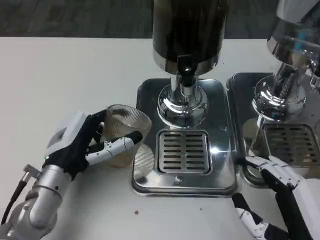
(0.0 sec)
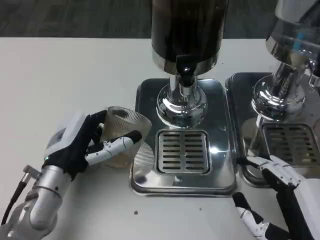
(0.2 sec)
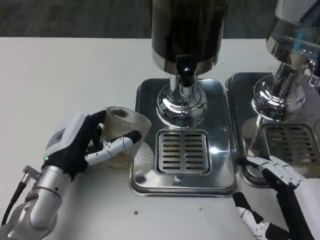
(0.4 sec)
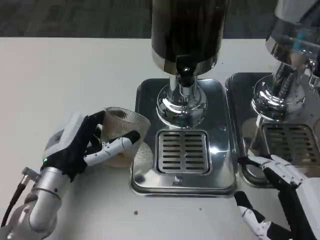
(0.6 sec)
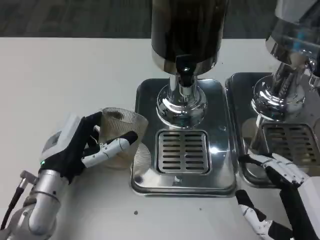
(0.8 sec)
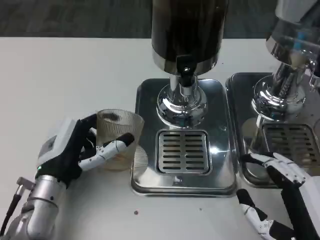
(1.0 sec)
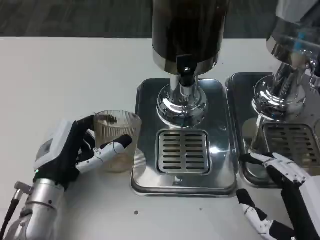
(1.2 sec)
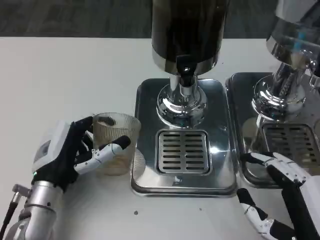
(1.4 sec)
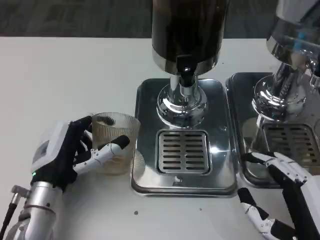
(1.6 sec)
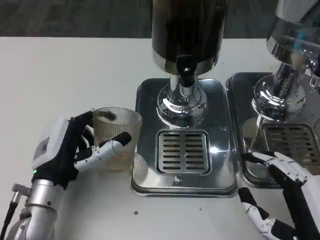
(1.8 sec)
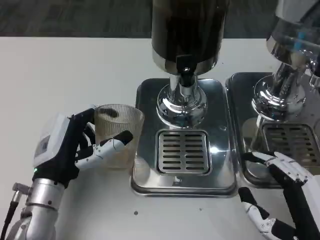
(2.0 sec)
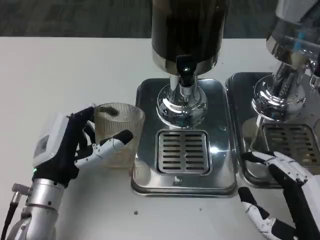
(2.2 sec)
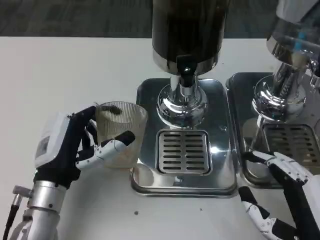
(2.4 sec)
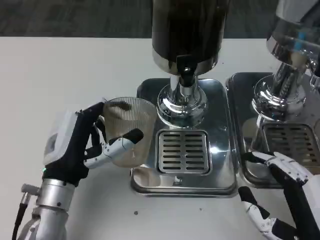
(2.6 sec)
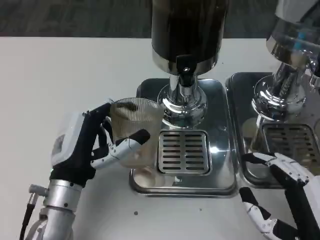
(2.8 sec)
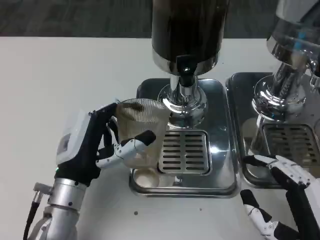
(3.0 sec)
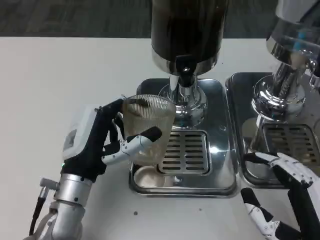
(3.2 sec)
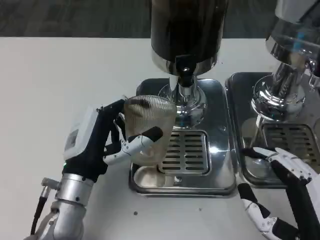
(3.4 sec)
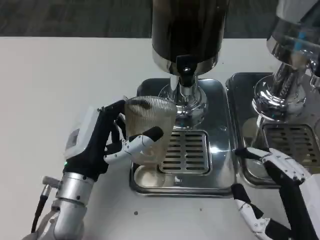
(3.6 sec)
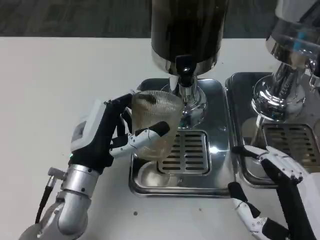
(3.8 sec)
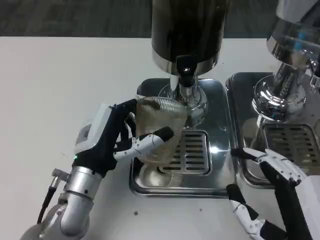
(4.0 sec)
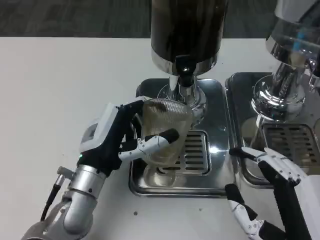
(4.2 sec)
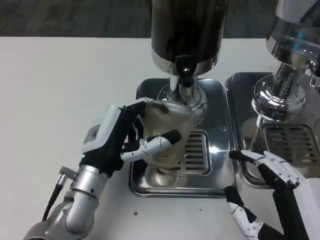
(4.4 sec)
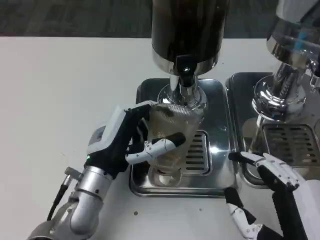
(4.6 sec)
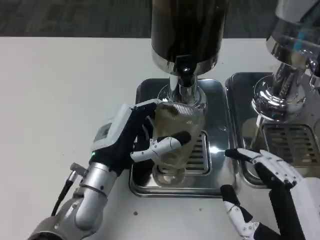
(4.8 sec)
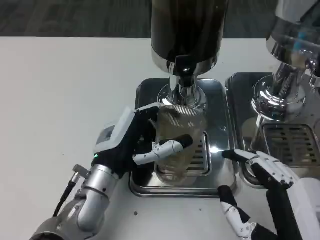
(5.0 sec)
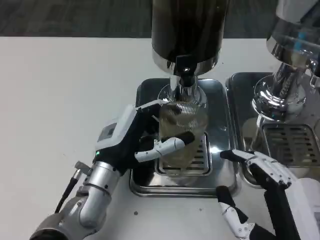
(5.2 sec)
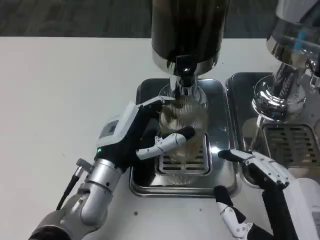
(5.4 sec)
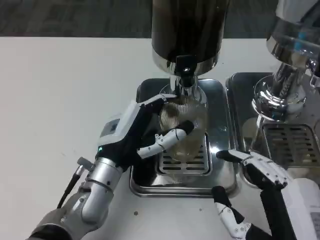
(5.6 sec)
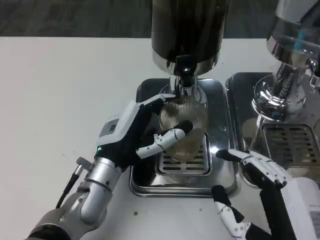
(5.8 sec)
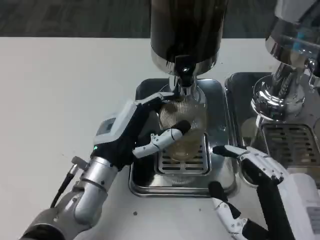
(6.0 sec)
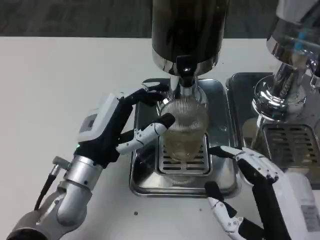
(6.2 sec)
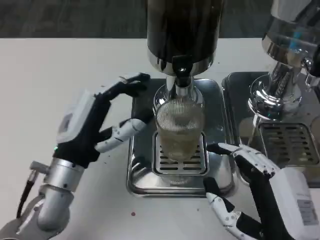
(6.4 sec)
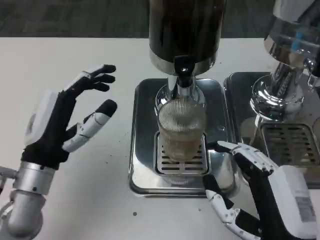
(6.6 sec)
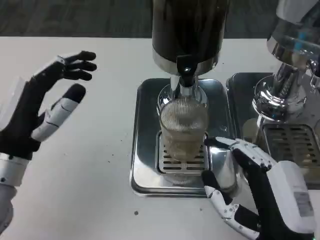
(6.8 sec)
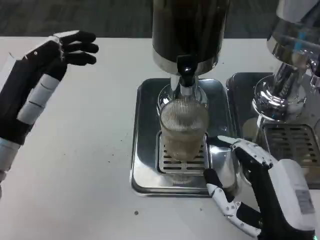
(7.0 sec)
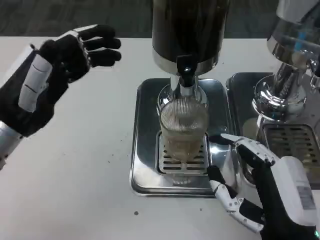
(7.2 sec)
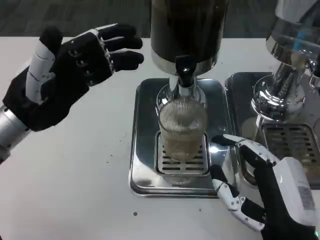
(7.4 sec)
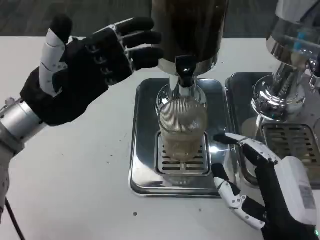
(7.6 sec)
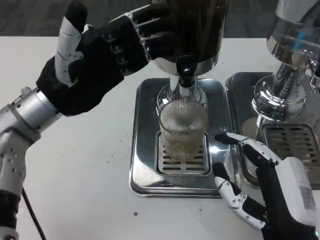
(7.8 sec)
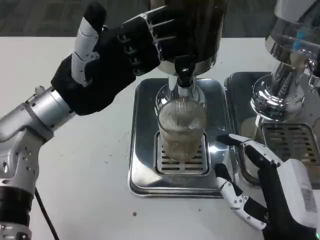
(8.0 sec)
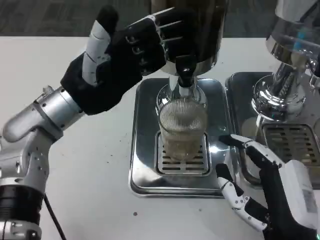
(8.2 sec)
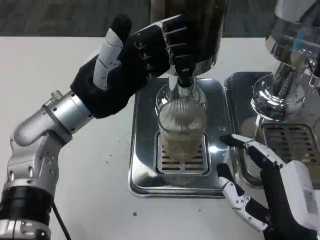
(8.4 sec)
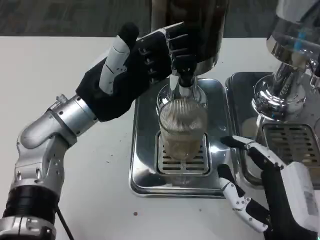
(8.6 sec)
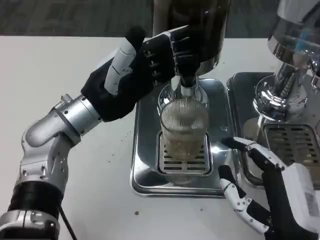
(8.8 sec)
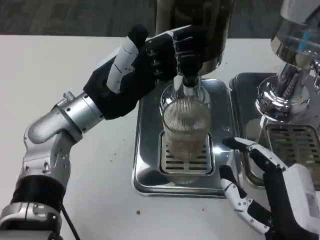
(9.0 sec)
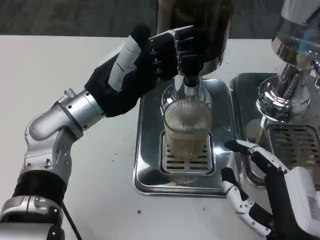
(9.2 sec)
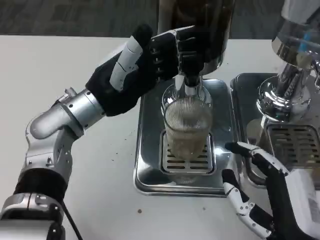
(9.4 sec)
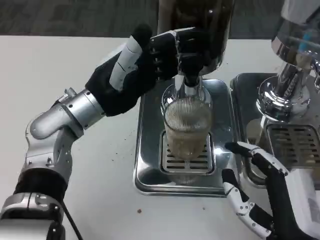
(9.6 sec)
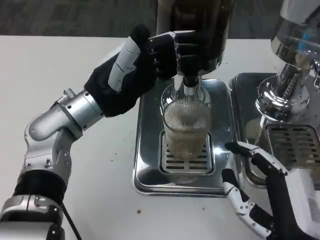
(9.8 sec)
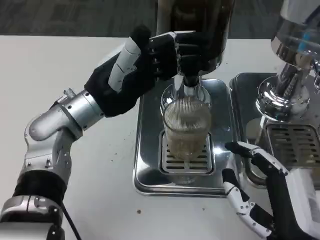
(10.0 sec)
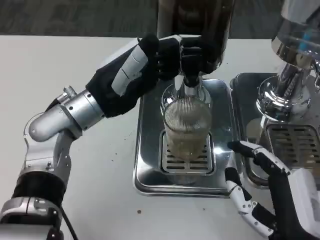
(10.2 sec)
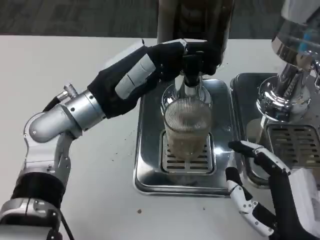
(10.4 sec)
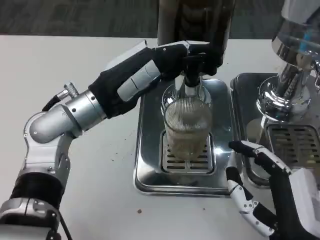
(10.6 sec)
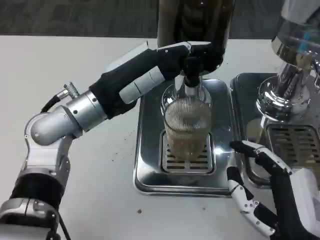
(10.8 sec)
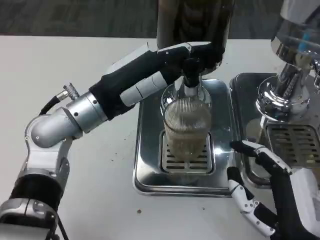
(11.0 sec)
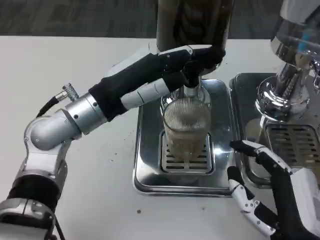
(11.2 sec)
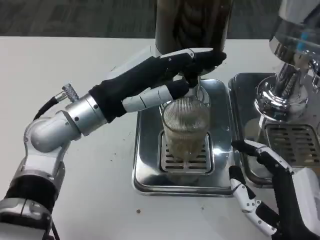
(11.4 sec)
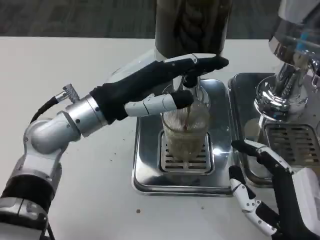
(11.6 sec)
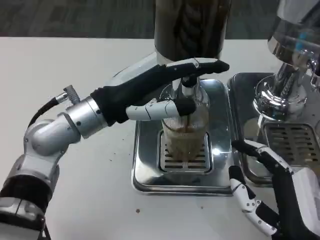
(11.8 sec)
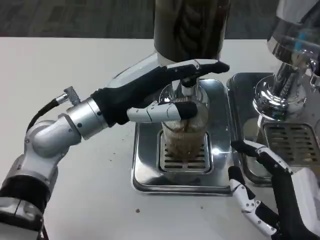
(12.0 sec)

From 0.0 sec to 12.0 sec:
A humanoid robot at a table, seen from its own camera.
Task of the whole recording: Grasp the cup under the faucet to collect the drink, then remove the cup.
From 0.0 sec to 3.0 sec: The hands make only small movements.
From 3.0 sec to 6.0 sec: The hands make only small movements.
From 6.0 sec to 7.6 sec: The right hand shifts by approximately 5 cm; the left hand moves upward and to the left, about 15 cm.
From 7.6 sec to 9.0 sec: The left hand is displaced to the right by roughly 5 cm.
From 9.0 sec to 10.4 sec: The hands make only small movements.

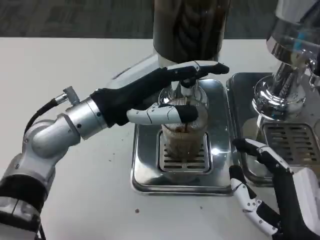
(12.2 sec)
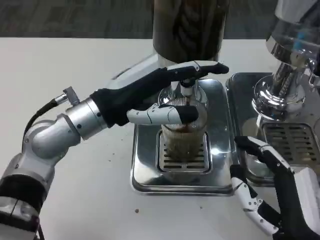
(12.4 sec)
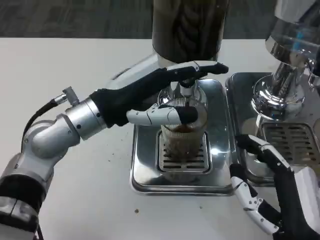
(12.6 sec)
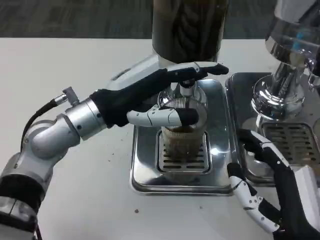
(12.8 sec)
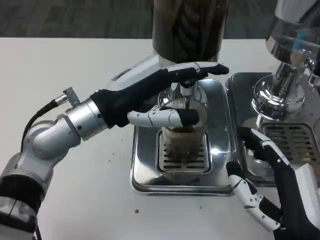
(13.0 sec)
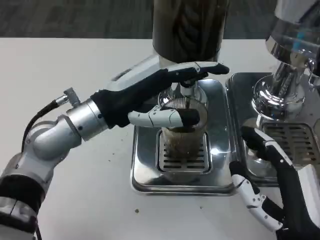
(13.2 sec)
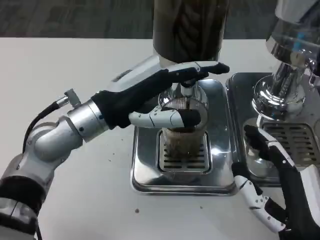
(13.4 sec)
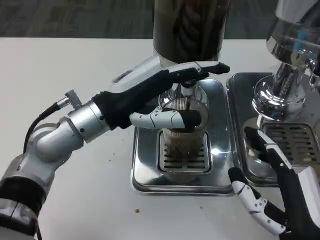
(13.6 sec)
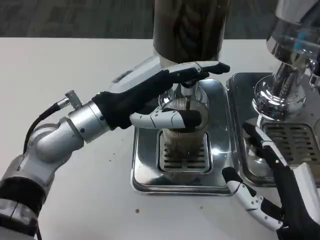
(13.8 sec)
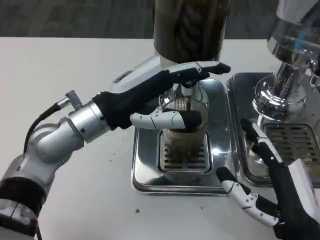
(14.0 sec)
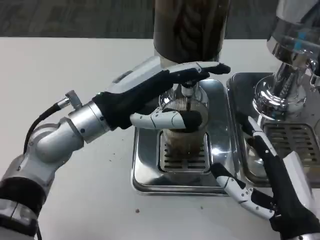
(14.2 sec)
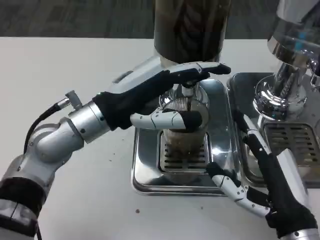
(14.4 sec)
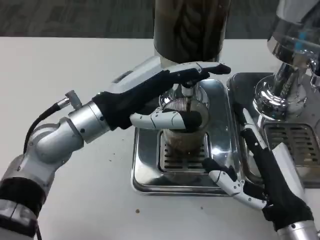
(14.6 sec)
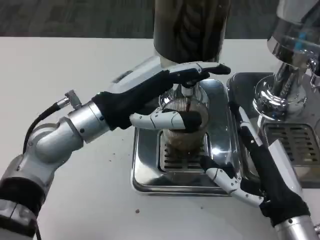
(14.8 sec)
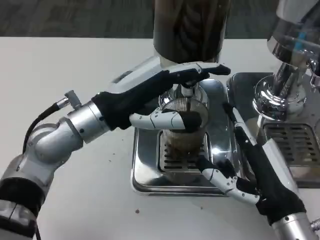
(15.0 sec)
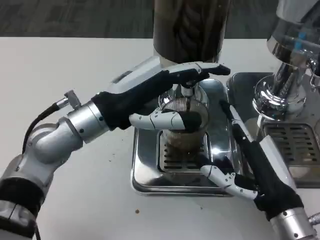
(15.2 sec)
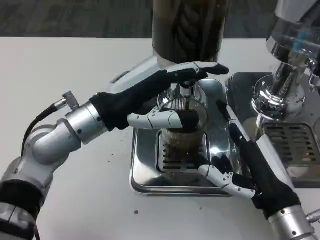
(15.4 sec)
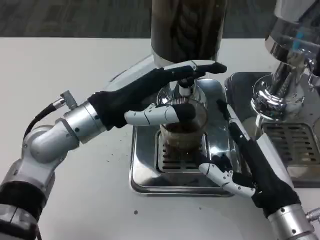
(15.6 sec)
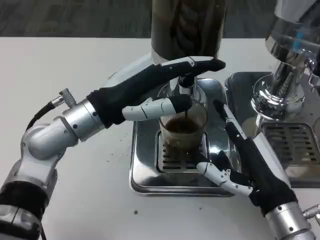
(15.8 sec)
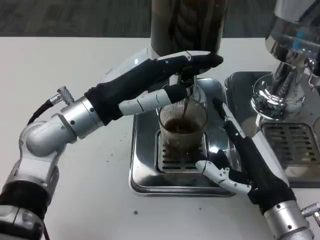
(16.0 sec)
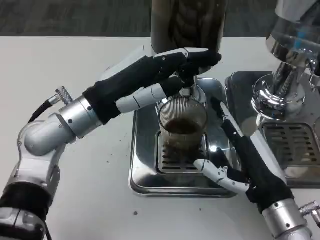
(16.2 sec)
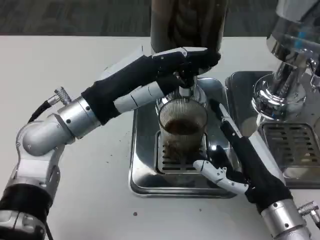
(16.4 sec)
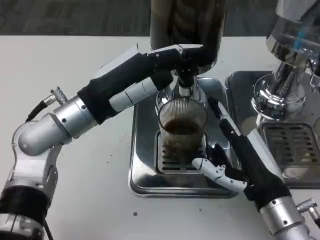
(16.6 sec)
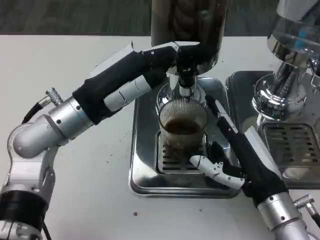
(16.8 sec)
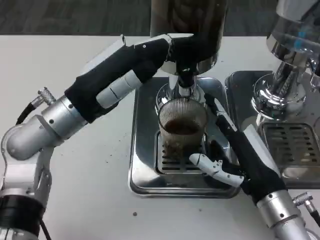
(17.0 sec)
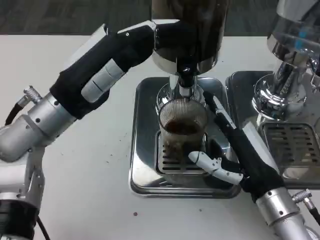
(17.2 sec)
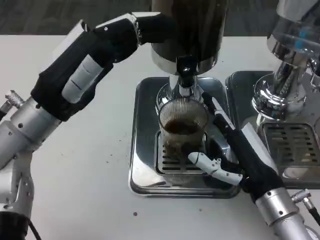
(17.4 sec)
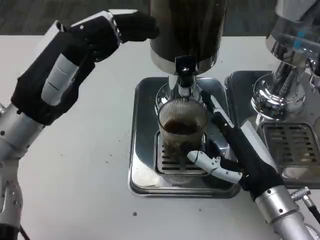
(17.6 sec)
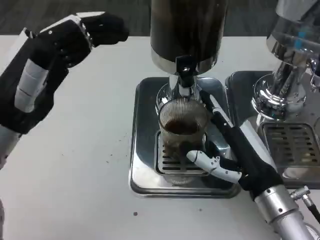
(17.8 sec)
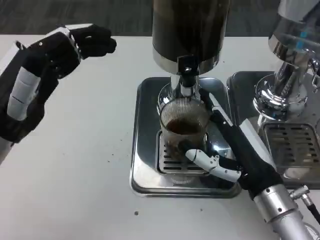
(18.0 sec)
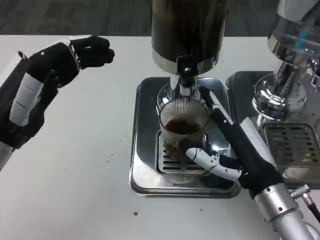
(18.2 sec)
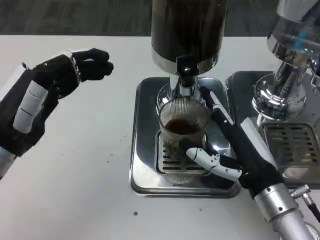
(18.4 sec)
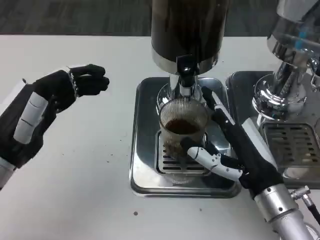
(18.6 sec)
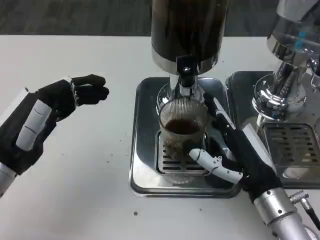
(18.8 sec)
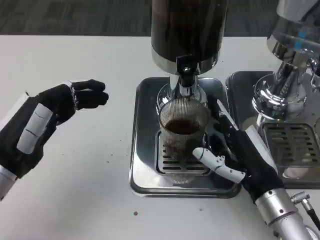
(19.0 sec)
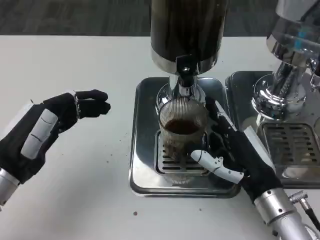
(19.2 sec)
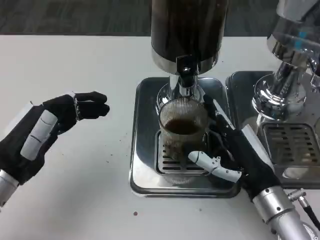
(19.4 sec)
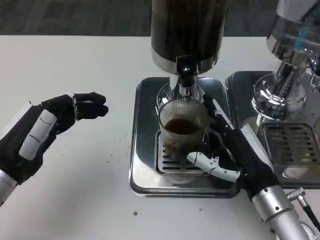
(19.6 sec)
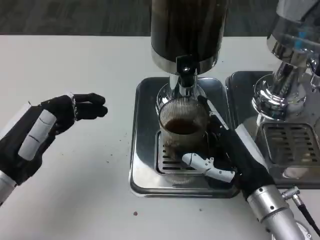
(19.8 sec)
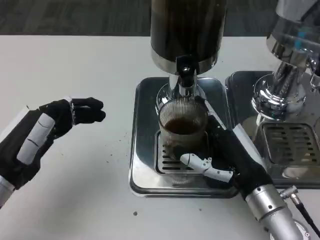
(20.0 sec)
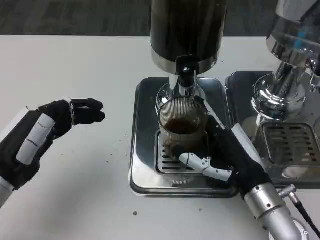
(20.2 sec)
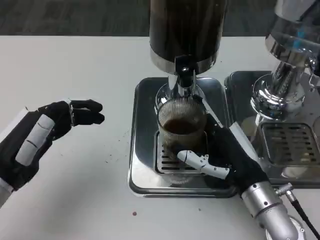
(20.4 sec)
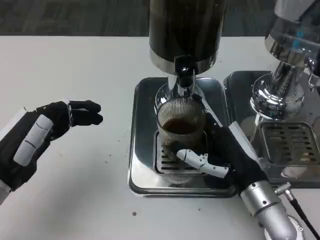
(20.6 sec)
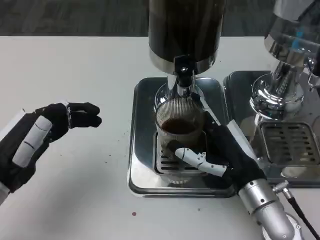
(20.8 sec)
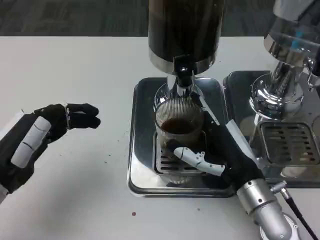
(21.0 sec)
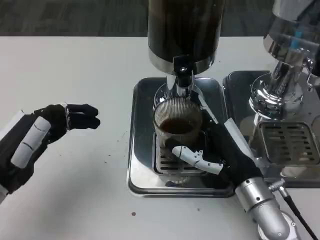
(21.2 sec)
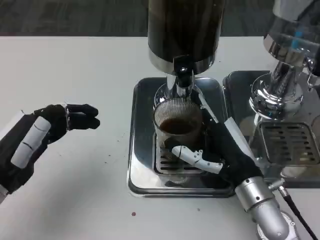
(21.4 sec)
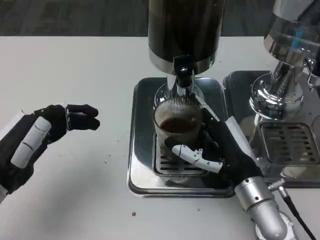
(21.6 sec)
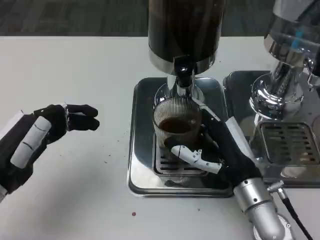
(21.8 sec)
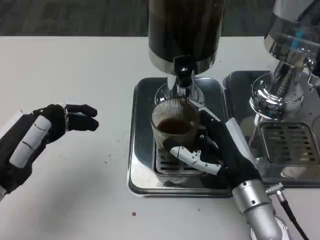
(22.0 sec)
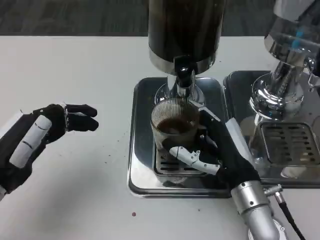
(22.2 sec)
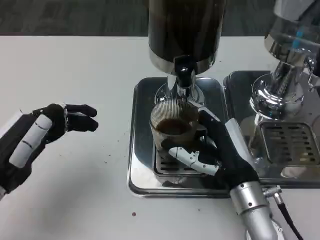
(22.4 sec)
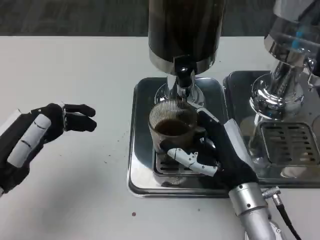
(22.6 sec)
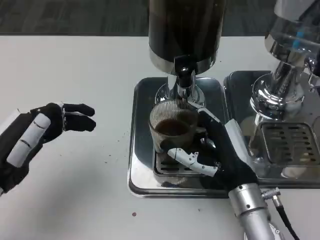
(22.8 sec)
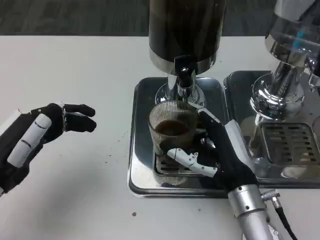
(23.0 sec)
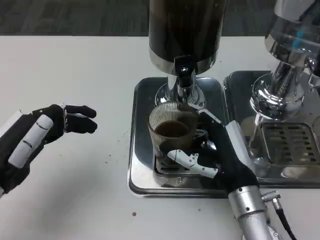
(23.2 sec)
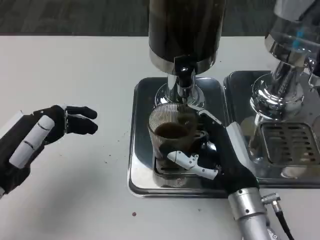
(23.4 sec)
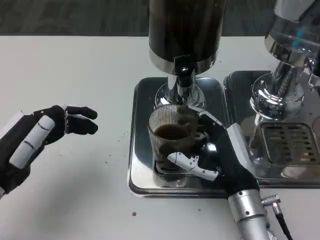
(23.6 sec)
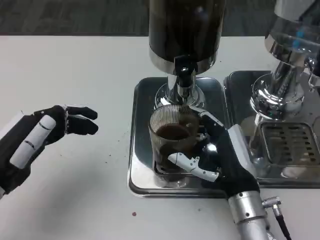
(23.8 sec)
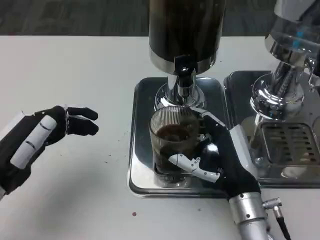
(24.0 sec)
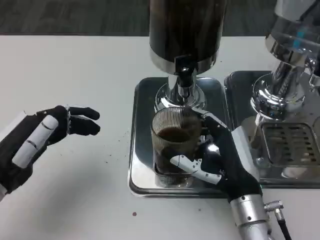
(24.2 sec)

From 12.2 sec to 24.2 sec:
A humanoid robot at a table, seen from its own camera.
Task of the whole recording: Grasp the cup under the faucet to collect the drink, then remove the cup.
From 12.2 sec to 13.8 sec: The hands move only a little.
From 13.8 sec to 15.2 sec: The right hand moves forward, about 5 cm.
From 16.6 sec to 18.2 sec: The left hand shifts roughly 10 cm to the left and backward.
From 18.2 sec to 19.8 sec: The left hand moves approximately 5 cm.
From 21.2 sec to 24.2 sec: The hands stay close to where they were, moving slightly.
